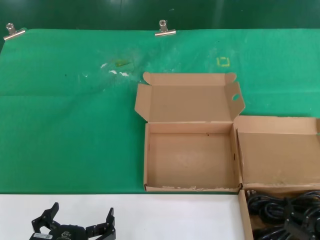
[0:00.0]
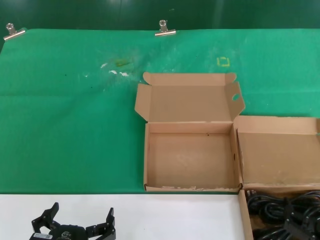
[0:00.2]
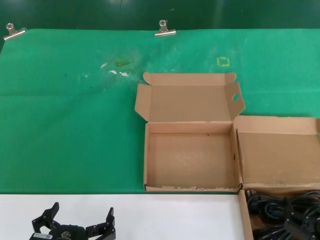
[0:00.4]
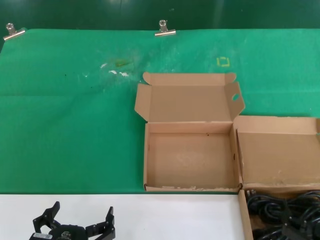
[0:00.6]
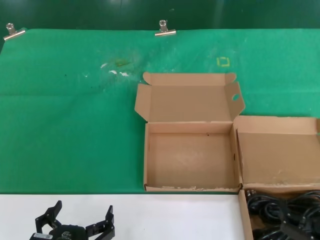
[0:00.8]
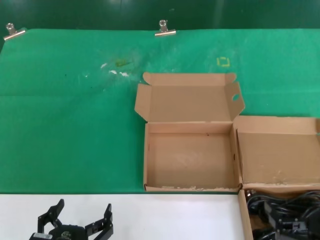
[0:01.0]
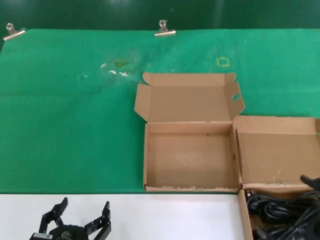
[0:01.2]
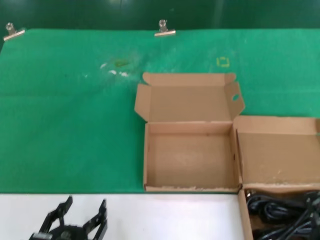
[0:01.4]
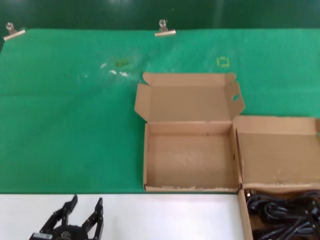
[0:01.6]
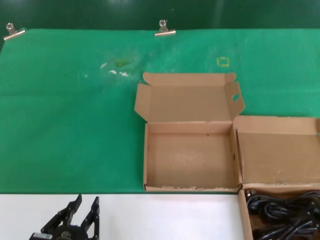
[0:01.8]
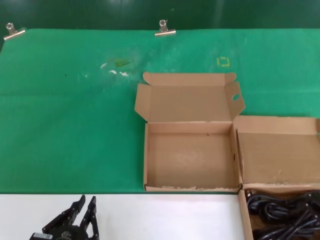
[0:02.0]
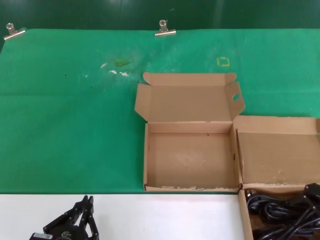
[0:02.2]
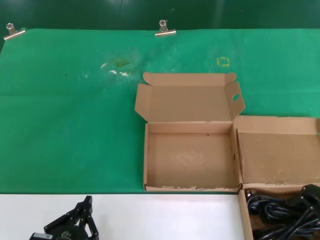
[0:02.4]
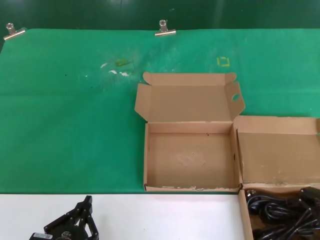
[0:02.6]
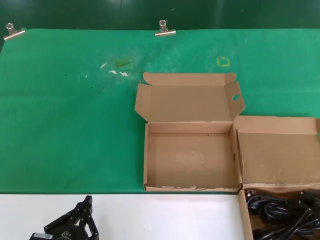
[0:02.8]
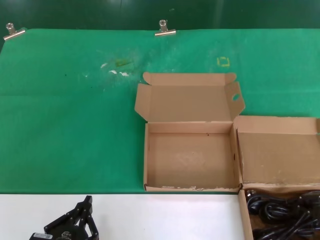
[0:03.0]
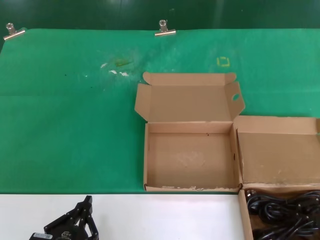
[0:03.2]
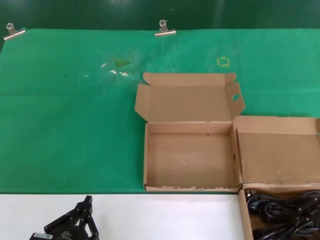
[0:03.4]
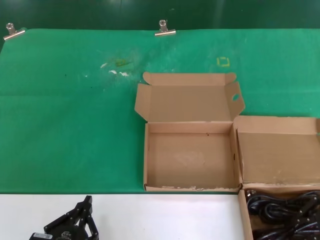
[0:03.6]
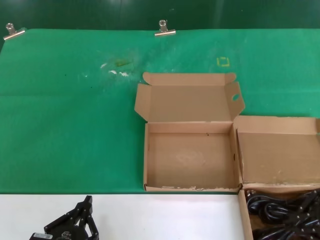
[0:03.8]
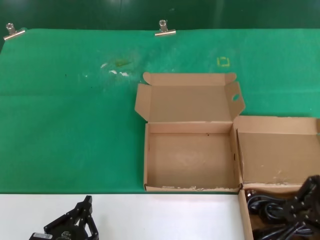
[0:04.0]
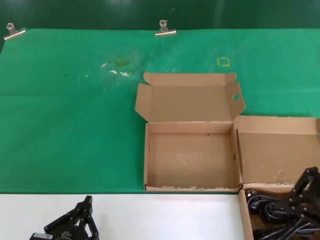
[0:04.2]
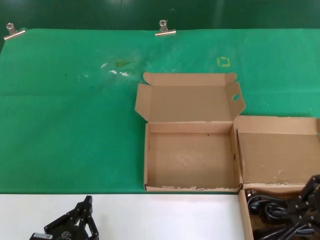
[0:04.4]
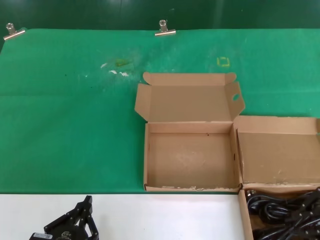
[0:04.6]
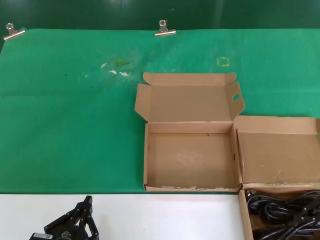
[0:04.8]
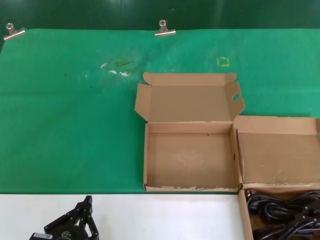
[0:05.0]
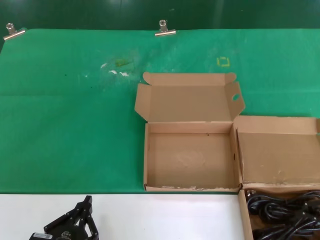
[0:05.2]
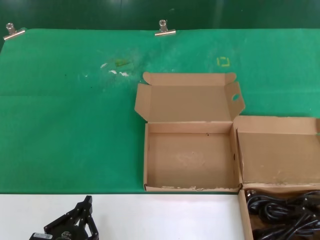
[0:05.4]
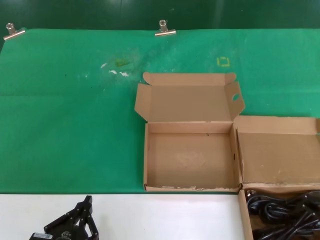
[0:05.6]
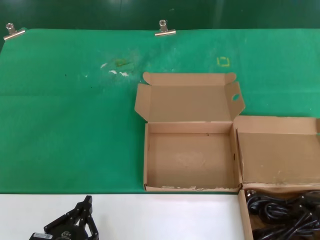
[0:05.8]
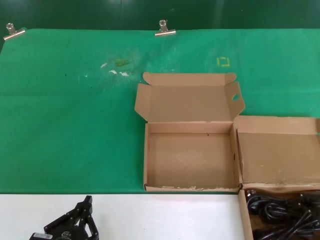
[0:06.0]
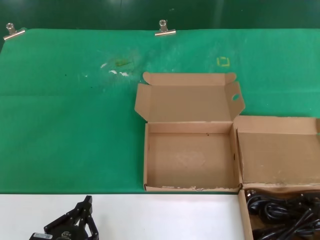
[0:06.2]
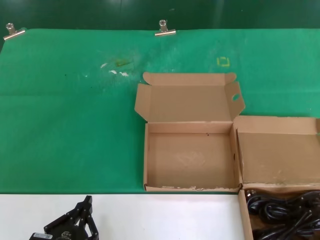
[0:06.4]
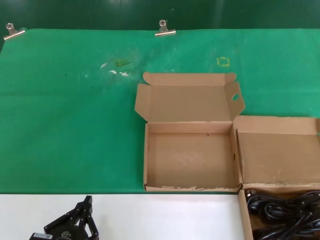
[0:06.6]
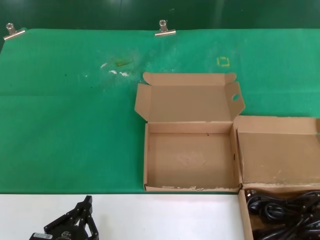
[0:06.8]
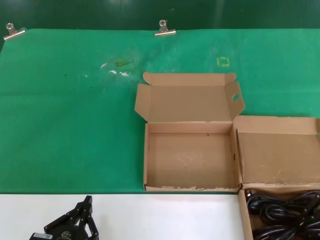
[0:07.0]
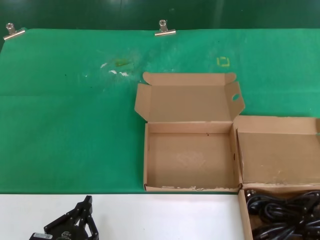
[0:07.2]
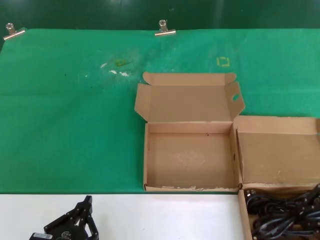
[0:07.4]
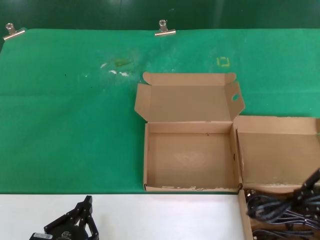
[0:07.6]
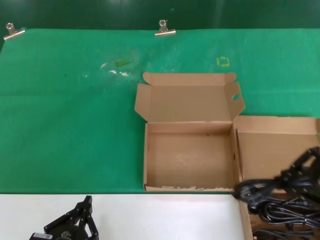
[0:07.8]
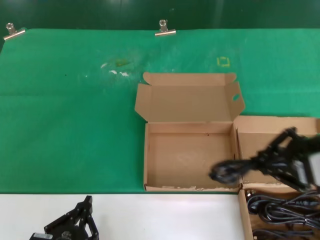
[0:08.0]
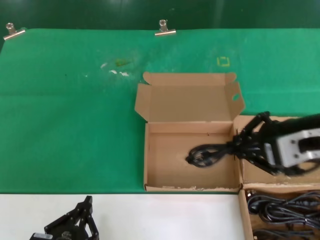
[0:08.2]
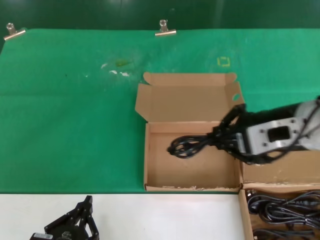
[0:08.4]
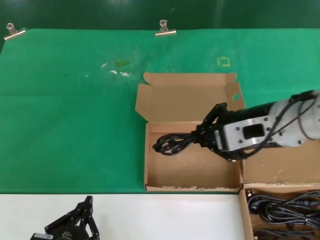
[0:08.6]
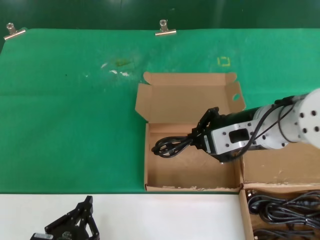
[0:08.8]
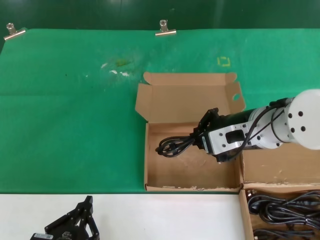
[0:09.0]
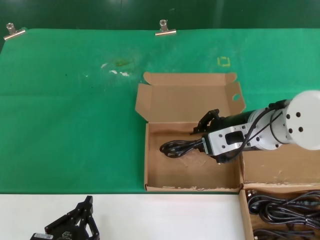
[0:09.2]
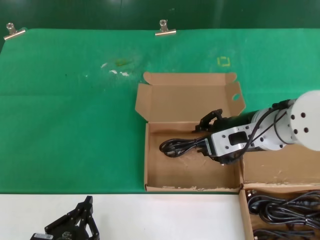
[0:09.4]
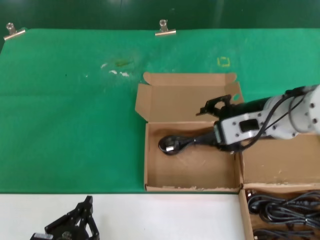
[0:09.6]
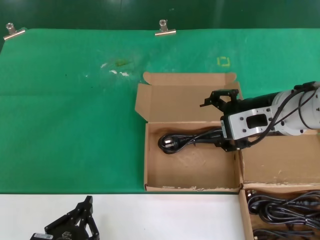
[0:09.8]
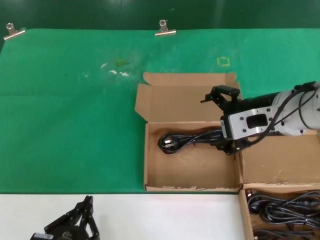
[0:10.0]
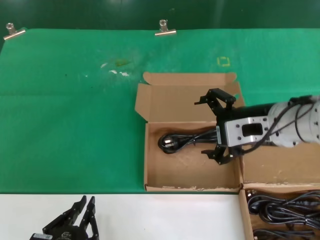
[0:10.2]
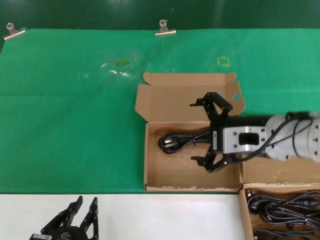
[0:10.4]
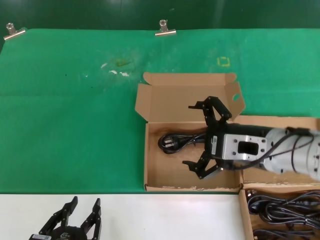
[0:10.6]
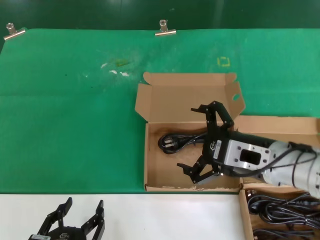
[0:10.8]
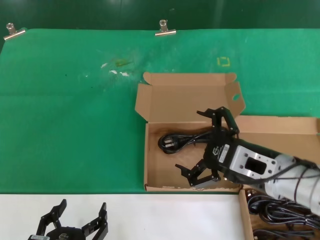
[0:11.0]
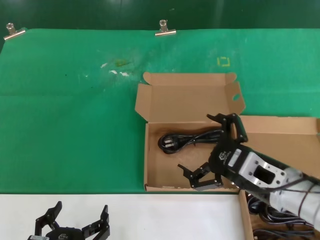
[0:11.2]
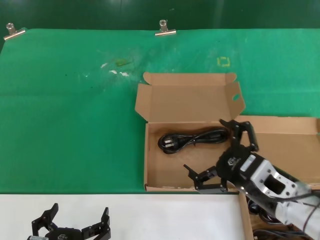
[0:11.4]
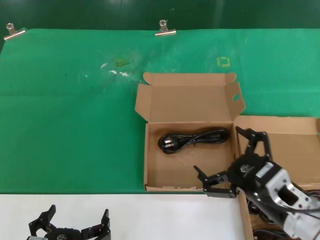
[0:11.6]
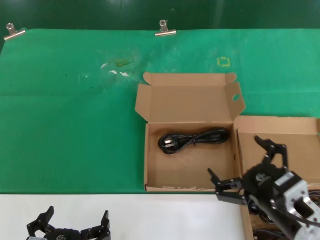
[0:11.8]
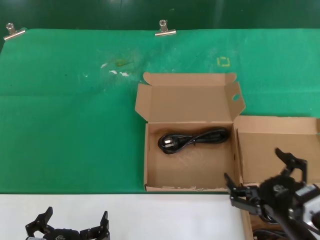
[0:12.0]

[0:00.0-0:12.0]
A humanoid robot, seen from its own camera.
Task of the whole recording: take the parts from the box containing them and put them into an empty box.
Step, 0.0 to 7.0 s: Grasp the data cable.
Step, 7.2 to 9.4 s: Place the data cable in the another box.
0.0 to 1.6 s: The right hand goes some 15 cm upward and to the right.
3.0 to 4.4 s: The right hand moves upward, roughly 5 cm.
4.4 to 6.0 s: The right hand heads downward, covering about 5 cm.
6.0 to 7.6 s: There are only small adjustments of the hands.
7.6 to 9.0 s: The right hand goes roughly 20 cm to the left and forward.
9.0 to 10.4 s: The hands make only small movements.
10.4 to 12.0 s: The right hand is displaced downward and backward by about 20 cm.

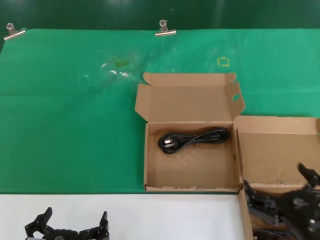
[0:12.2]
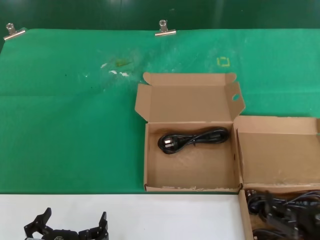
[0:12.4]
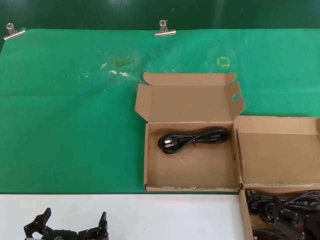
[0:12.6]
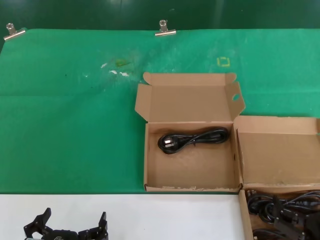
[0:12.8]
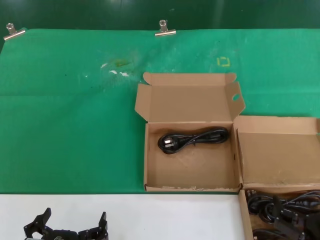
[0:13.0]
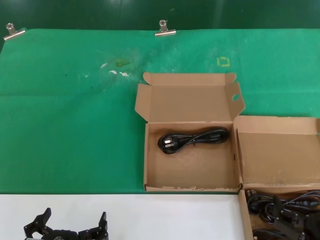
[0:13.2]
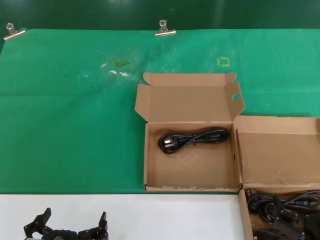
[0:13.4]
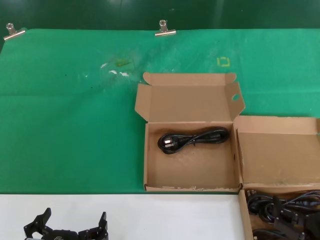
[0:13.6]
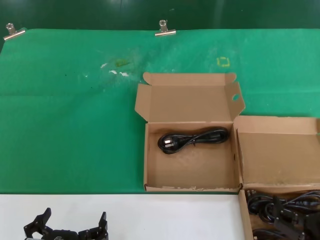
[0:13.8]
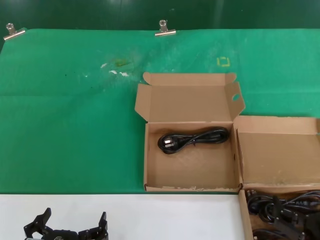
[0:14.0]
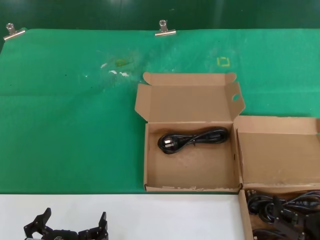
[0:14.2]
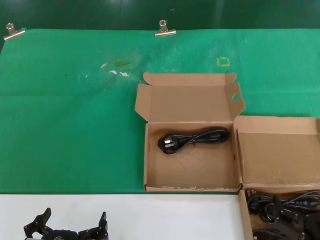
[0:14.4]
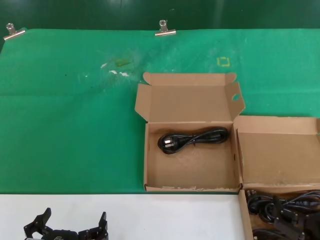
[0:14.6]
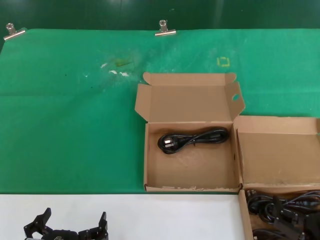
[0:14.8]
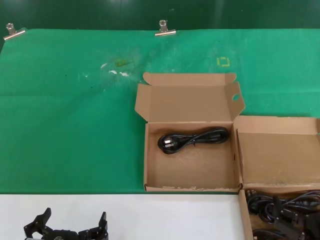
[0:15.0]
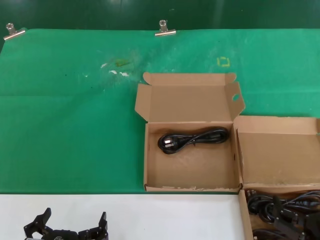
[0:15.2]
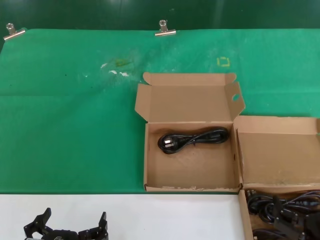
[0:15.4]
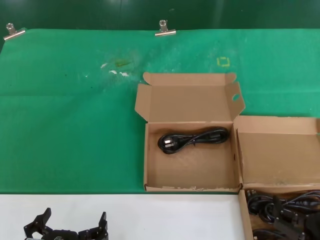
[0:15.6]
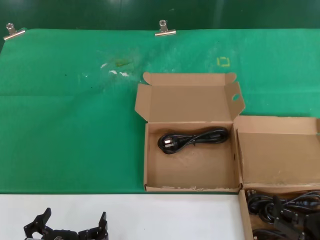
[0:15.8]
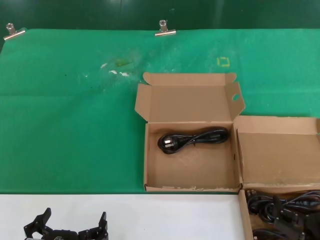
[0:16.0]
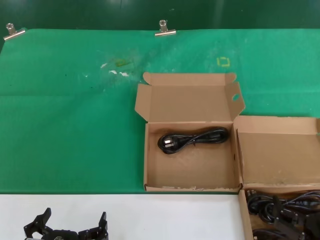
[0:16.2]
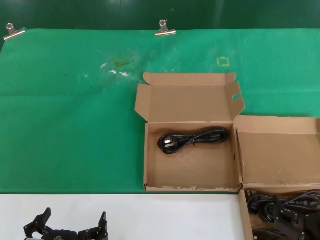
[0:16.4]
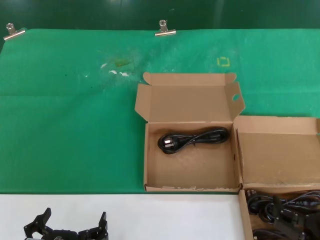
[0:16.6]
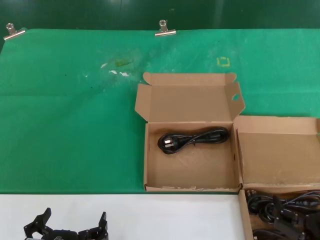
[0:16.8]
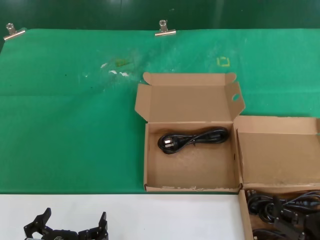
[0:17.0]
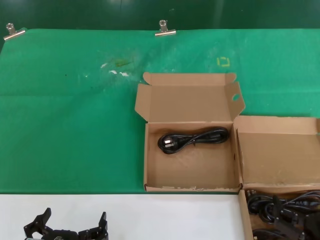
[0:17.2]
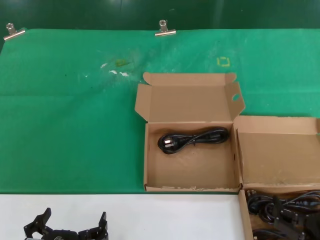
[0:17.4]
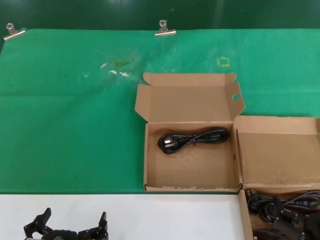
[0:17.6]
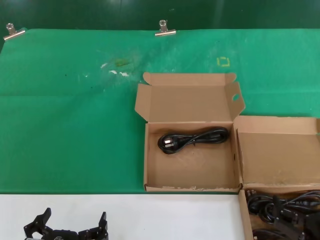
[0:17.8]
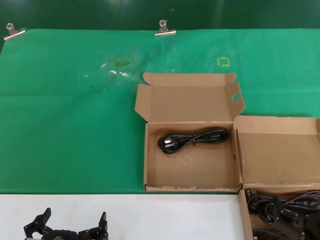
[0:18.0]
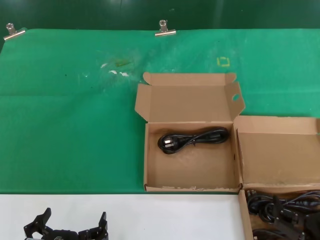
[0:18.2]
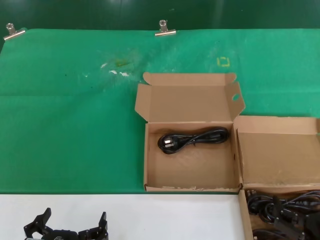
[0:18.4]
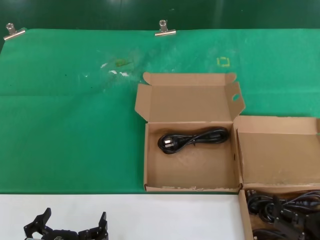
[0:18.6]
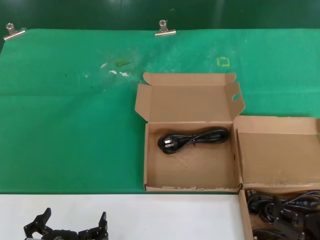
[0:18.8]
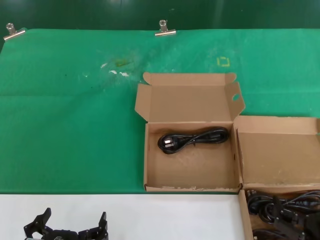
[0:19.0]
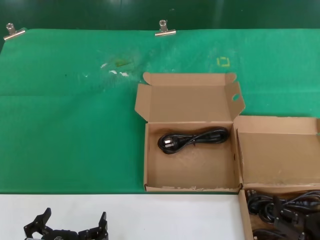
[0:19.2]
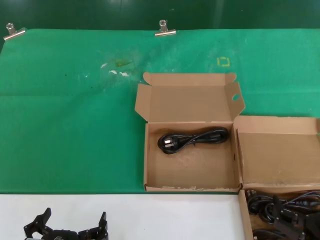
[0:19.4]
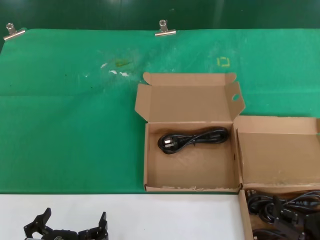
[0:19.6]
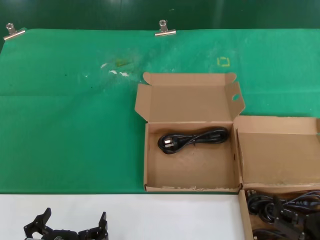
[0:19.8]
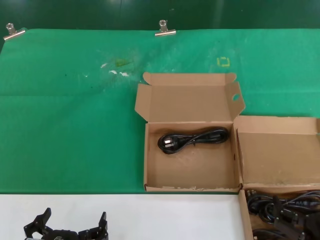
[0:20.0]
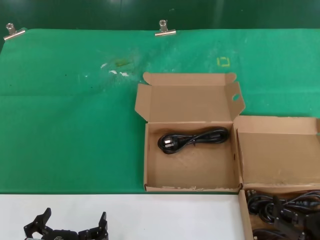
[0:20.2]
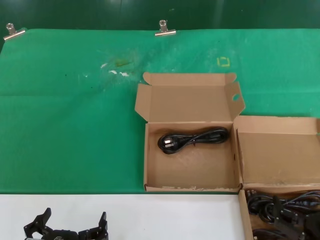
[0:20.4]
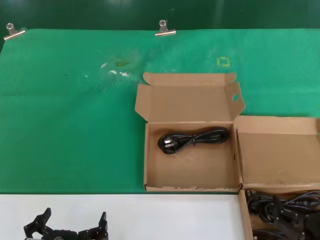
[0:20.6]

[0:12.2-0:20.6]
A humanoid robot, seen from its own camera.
Task of the whole recording: take the parts from the box containing them and put them into an empty box.
12.2 to 13.6 s: The right hand moves some 5 cm.
13.6 to 20.6 s: Neither hand changes place.

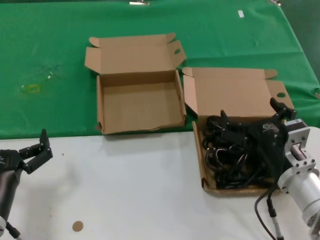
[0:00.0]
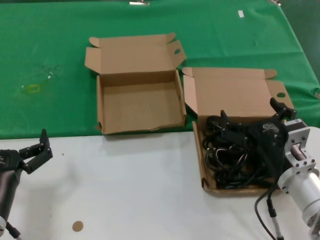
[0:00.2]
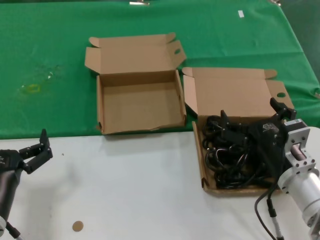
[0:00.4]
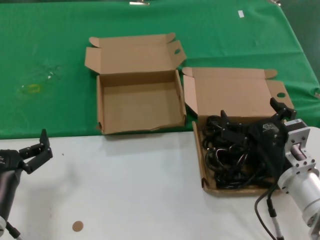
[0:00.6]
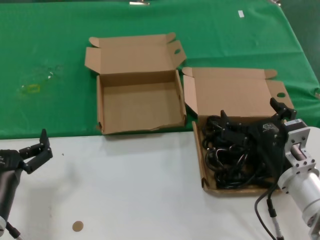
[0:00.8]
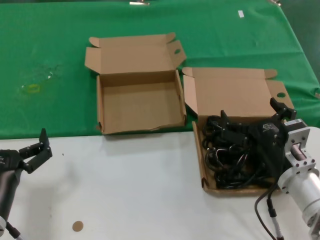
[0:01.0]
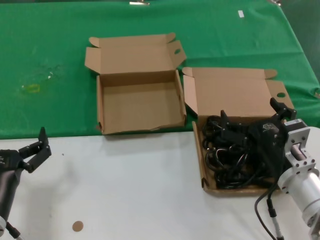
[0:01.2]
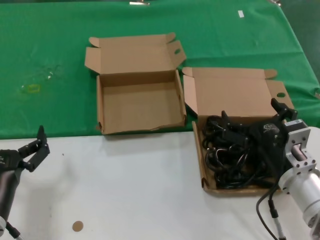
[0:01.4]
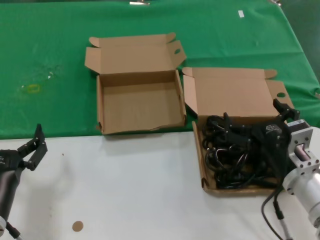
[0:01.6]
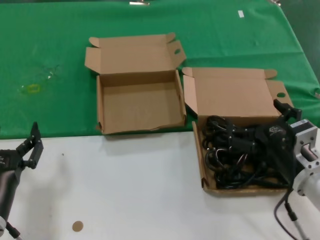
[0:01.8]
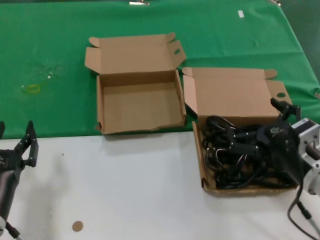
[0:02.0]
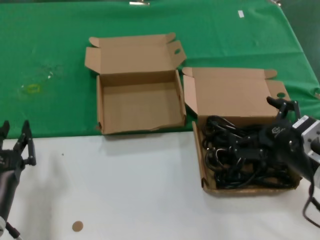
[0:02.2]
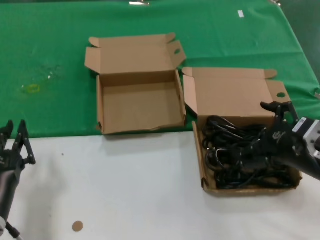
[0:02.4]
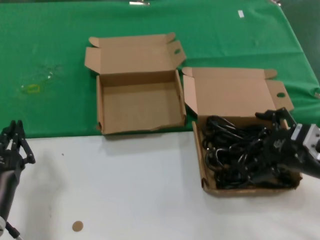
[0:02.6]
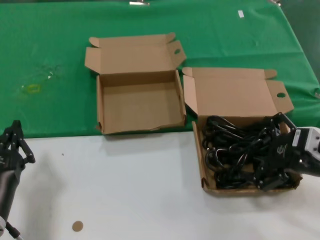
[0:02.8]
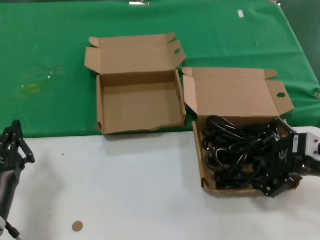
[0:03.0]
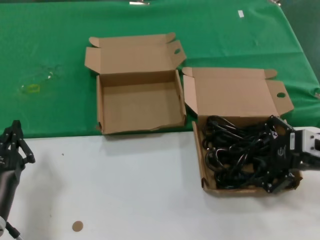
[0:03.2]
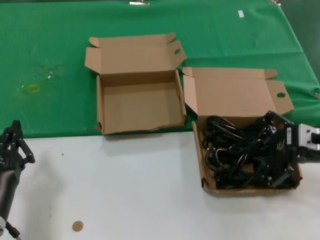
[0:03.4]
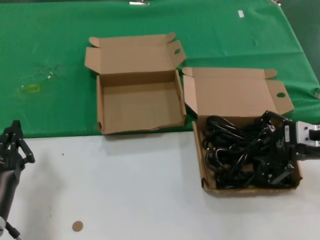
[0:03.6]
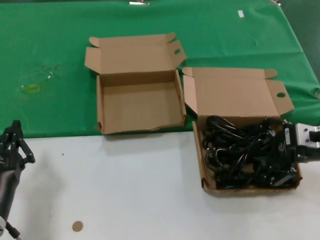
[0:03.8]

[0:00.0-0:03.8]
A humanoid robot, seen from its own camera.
Task of the whole recording: take the parts from the box containing them and put them into an empty box.
0.0 to 1.2 s: Neither hand changes place.
1.2 to 2.6 s: The right hand travels to the right and upward by about 10 cm.
2.6 to 3.8 s: The right hand moves forward, some 10 cm.
